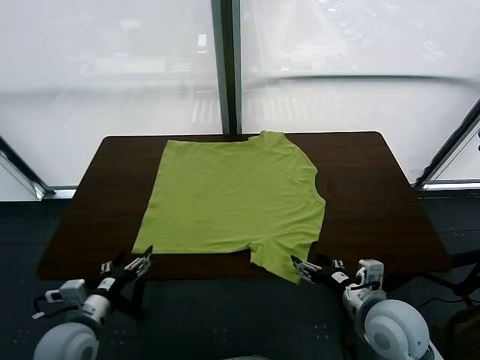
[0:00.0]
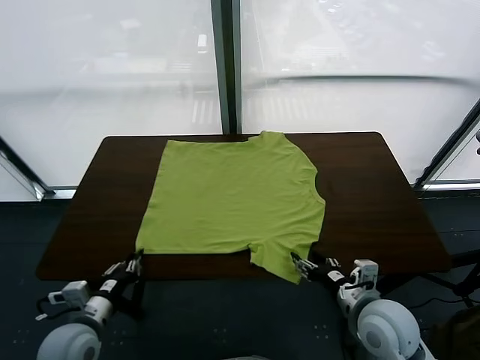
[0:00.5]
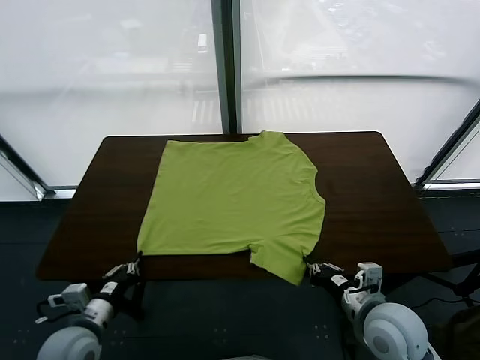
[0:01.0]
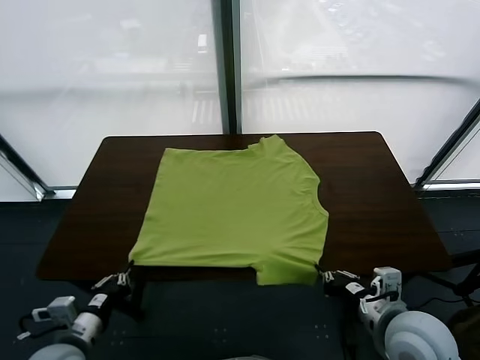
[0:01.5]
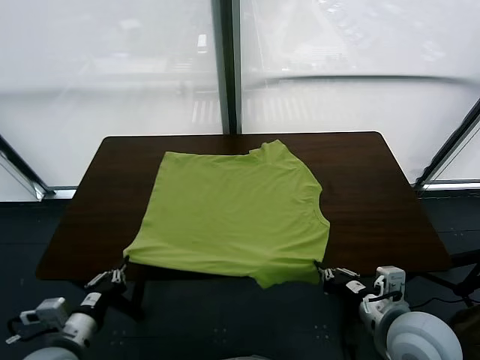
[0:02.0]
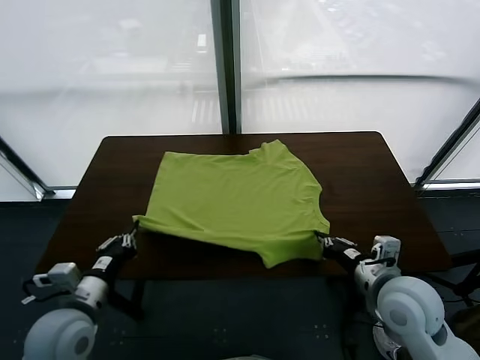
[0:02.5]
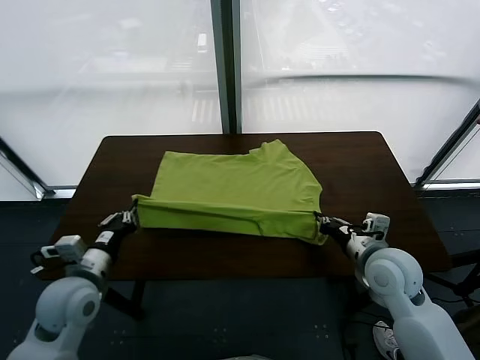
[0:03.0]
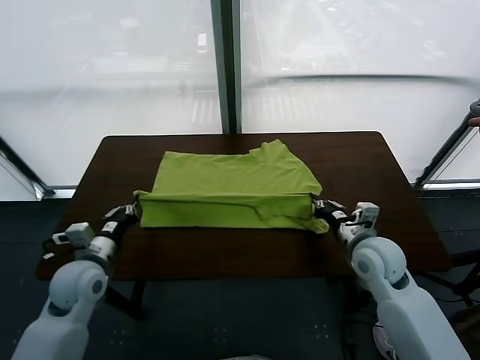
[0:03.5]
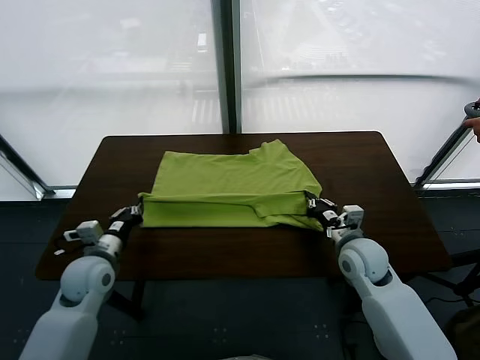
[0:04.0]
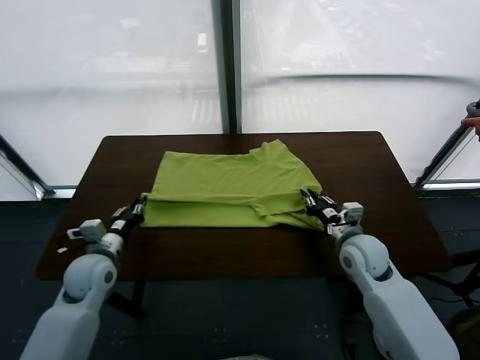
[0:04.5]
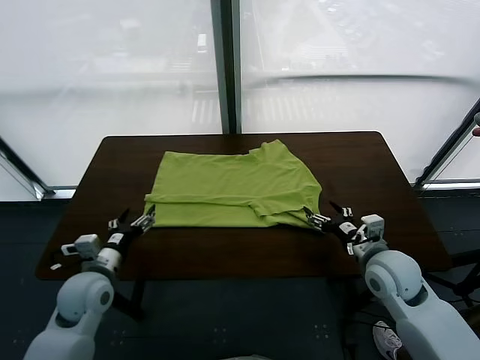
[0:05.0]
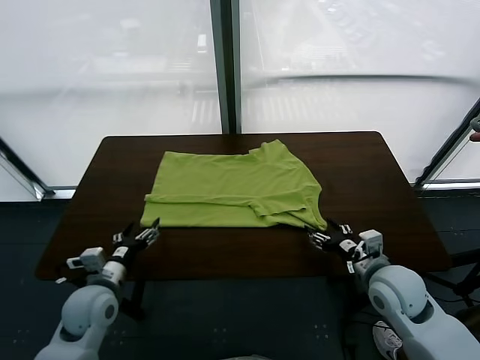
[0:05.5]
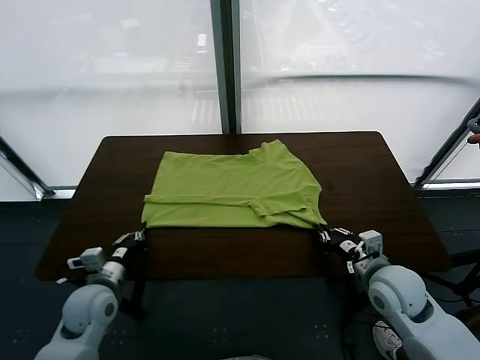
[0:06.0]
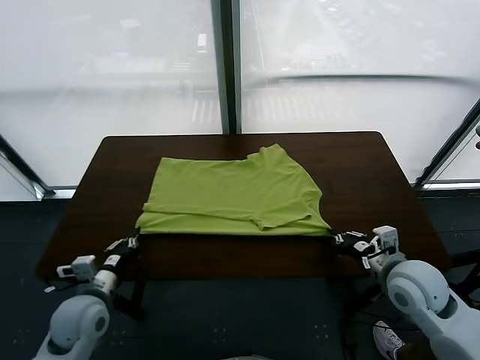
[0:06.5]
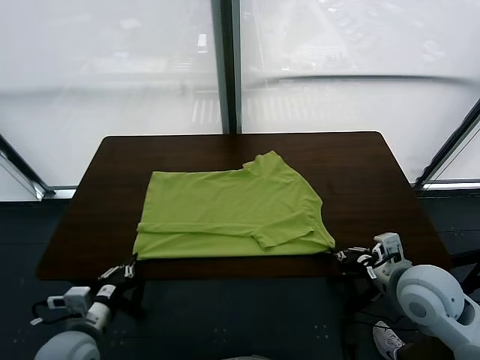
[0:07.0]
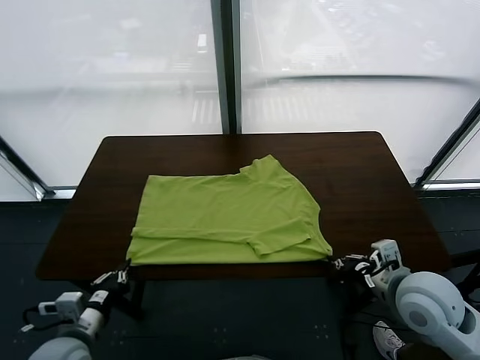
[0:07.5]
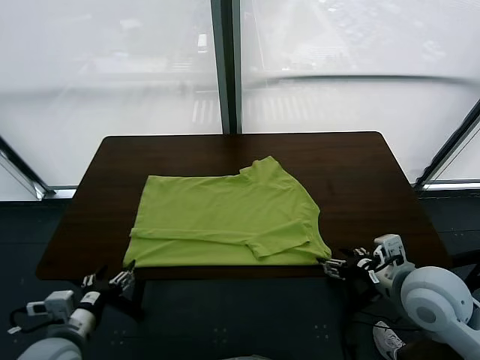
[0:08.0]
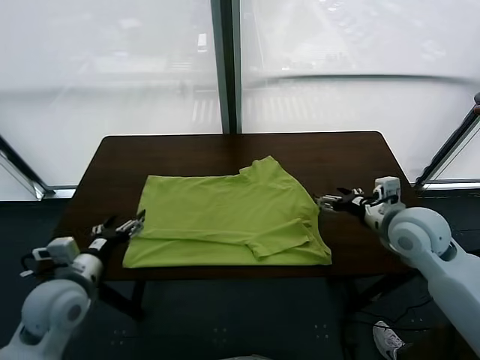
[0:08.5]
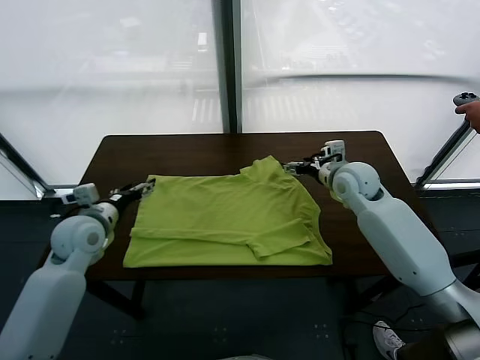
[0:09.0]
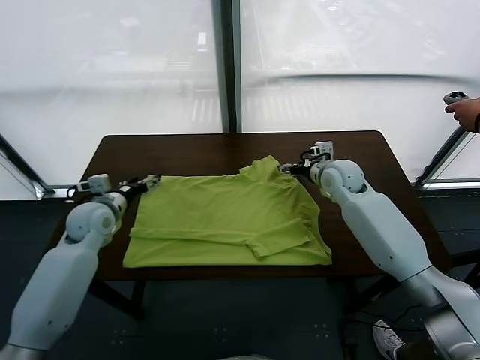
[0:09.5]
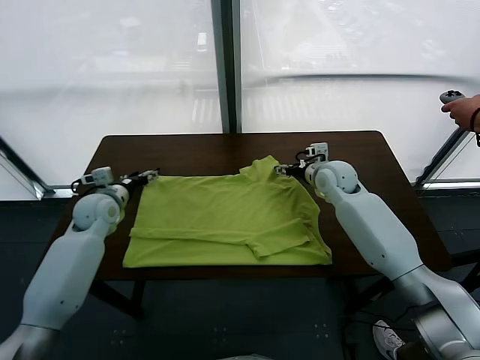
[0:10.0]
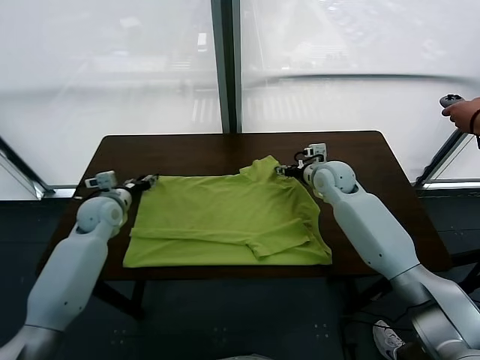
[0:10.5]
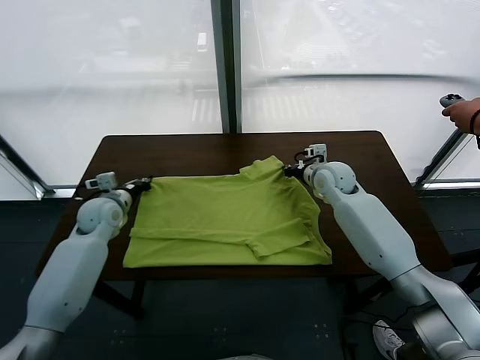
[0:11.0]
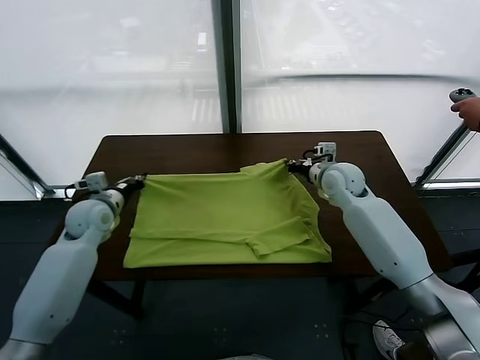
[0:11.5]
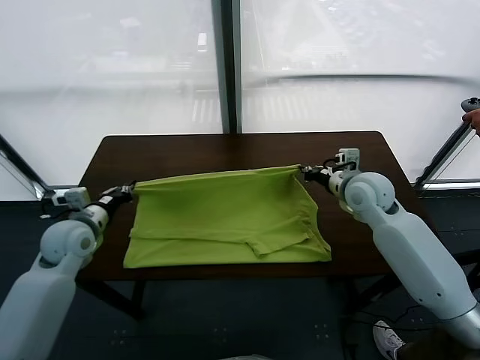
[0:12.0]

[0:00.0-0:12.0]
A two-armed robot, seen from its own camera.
Task of the whole recording: fold and organize the clothes.
Step, 0:00.0 to 0:01.0: use both grippers simultaneously to clamp the lower edge of the clothing fabric.
Step, 0:01.5 to 0:04.5: use both grippers to drag the lower edge of the fabric forward and fold it over the upper edge.
Step, 0:05.0 to 0:08.0: Drag the clothes downward with both gripper.
Step, 0:08.5 to 0:11.0: use both grippers simultaneously to clamp the upper edge of the clothing fabric.
0:02.0 to 0:04.0: The left gripper heads forward, covering roughly 15 cm. The right gripper heads forward and downward, covering about 20 cm.
0:04.0 to 0:06.0: The right gripper shifts approximately 10 cm backward, and opens and closes again. Meanwhile the left gripper moves roughly 5 cm, and opens and closes again.
0:06.0 to 0:08.0: The right gripper is displaced upward by roughly 10 cm, and opens up; the left gripper shifts roughly 10 cm backward and upward, and opens its fingers.
0:08.0 to 0:10.0: Both grippers travel together forward, some 30 cm.
0:10.0 to 0:12.0: The right gripper is displaced backward and upward by roughly 10 cm, and closes its fingers; the left gripper goes some 10 cm backward, and closes up.

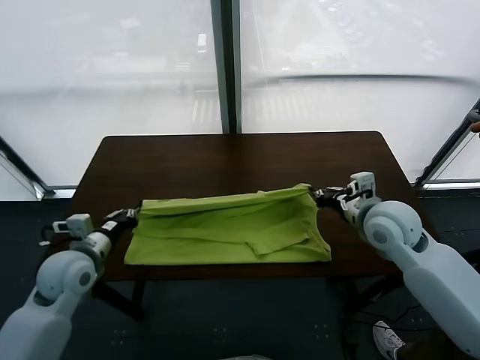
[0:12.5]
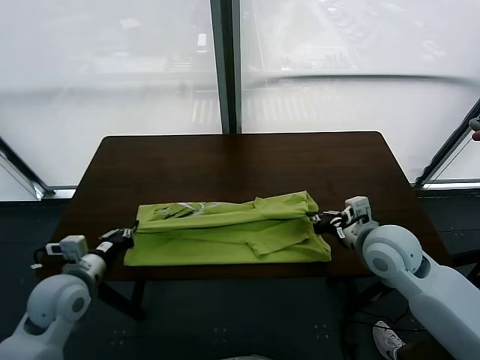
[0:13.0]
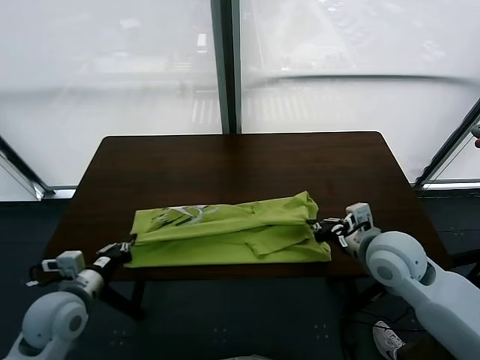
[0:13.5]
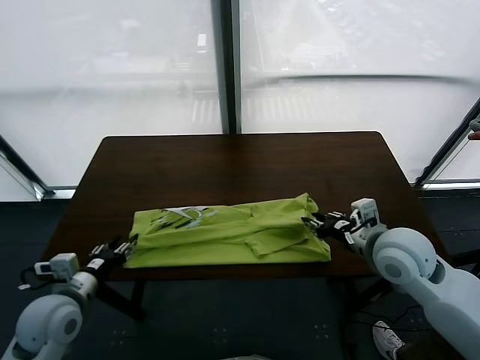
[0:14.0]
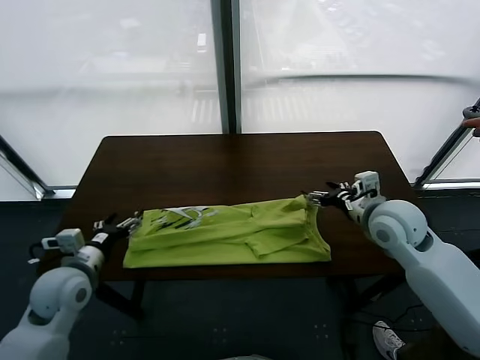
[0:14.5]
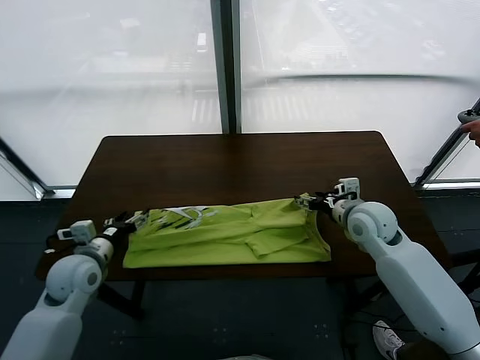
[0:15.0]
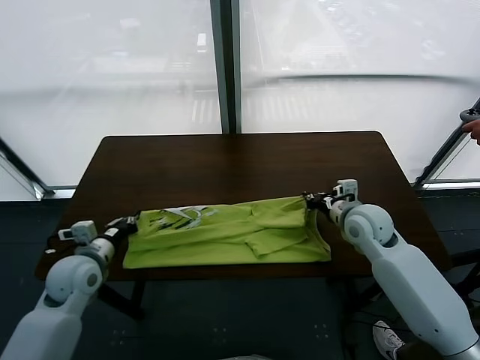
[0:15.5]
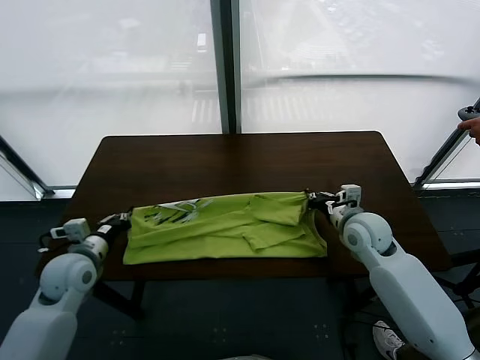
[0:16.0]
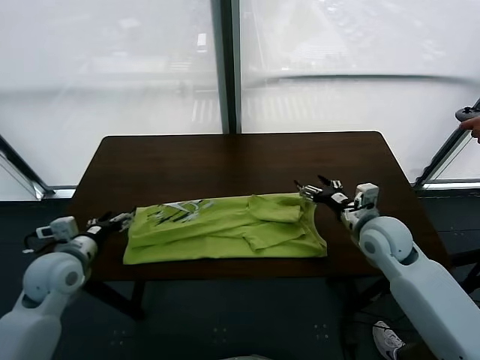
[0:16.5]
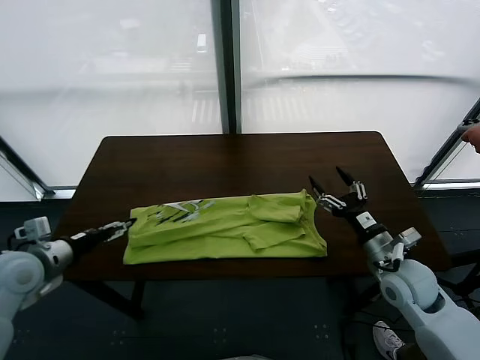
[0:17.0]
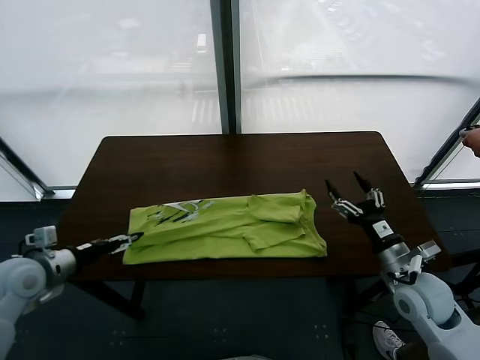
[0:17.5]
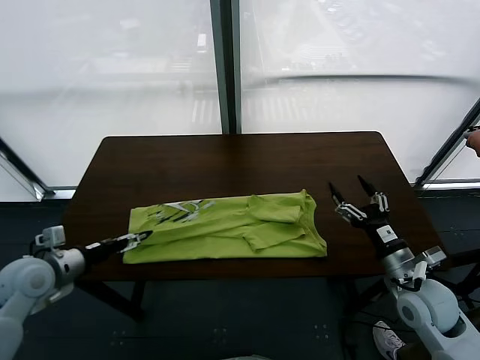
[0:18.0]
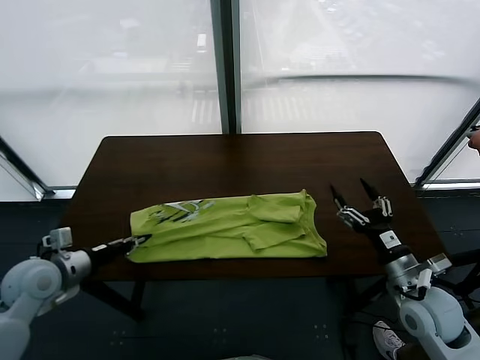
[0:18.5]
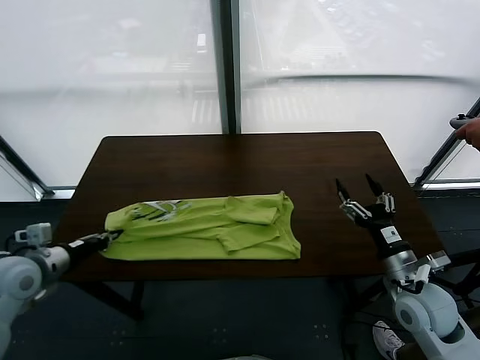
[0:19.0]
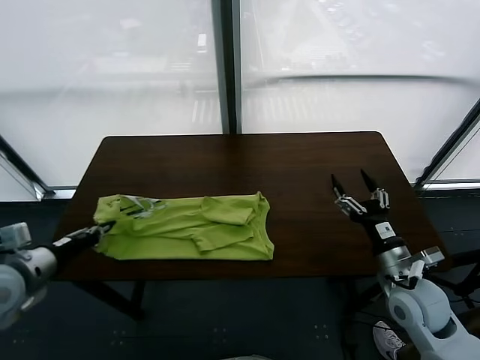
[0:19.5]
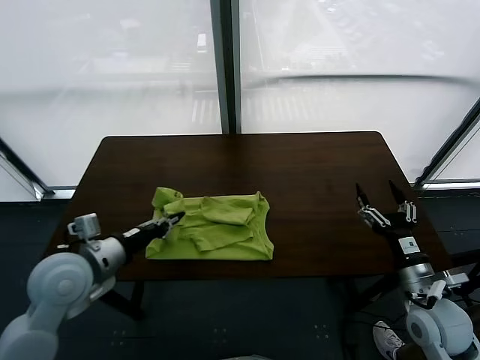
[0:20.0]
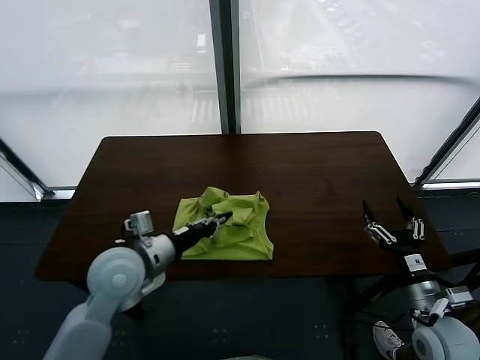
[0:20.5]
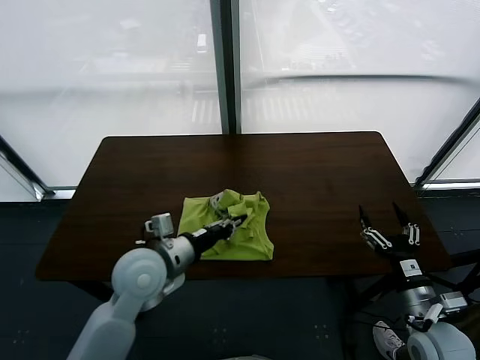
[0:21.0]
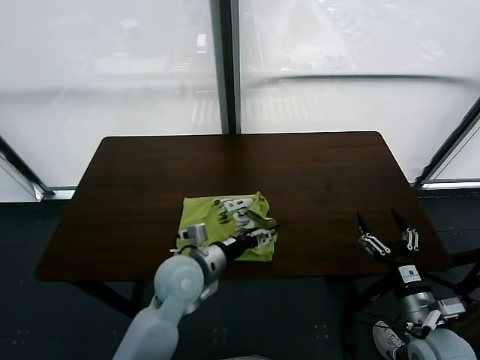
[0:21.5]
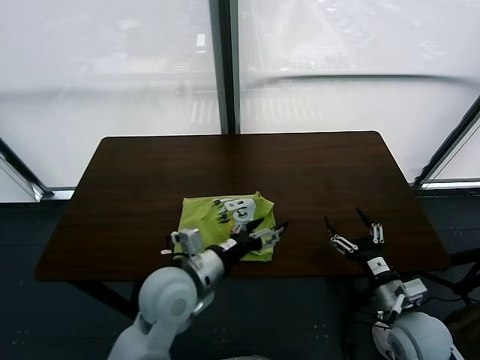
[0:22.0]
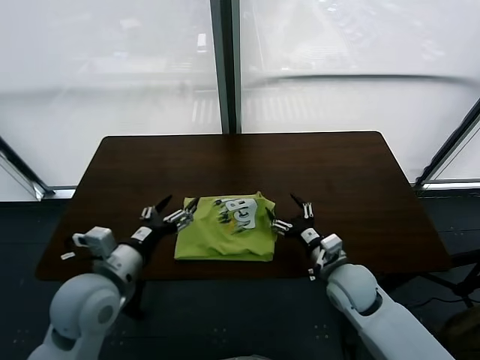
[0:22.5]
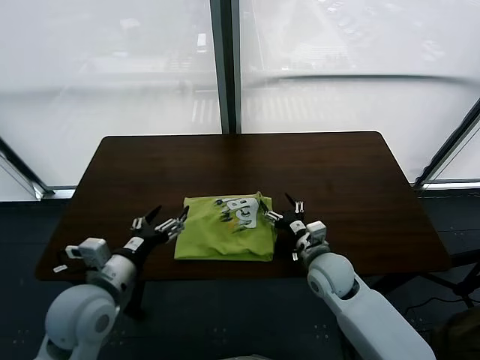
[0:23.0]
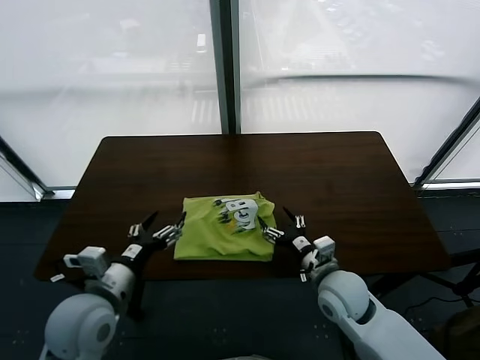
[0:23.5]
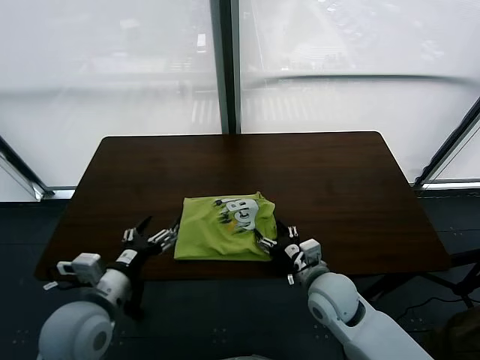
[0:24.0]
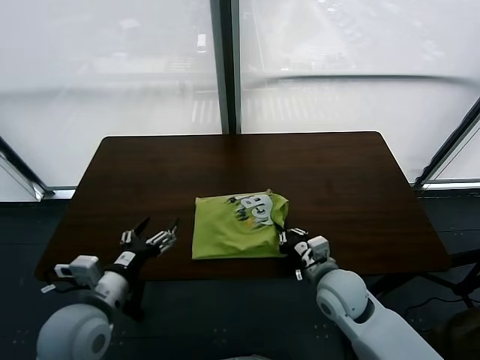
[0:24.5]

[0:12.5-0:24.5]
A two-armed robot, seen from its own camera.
Task of the whole recording: fold and organize the clothes.
Step, 0:12.5 to 0:14.0: use both grippers to drag the upper edge of the fabric backward and fold it over the lower edge.
Step, 0:14.5 to 0:18.5: use the left gripper to clamp the left edge of the fabric.
Step, 0:19.0 to 0:21.5: use the left gripper to drag the left edge of the fabric to the left and folds it over the right edge.
0:12.5 to 0:14.5: The left gripper opens its fingers; the right gripper opens its fingers.
0:14.5 to 0:16.5: The left gripper closes, then opens again. Meanwhile the right gripper changes place by roughly 5 cm, and closes, then opens again.
0:16.5 to 0:18.5: The right gripper goes about 15 cm backward, while the left gripper closes up.
0:18.5 to 0:20.5: The left gripper moves to the right, about 20 cm, while the right gripper changes place by some 5 cm.
0:20.5 to 0:22.5: The left gripper heads backward, covering about 5 cm, moves roughly 10 cm to the right and comes back, and opens up; the right gripper heads to the left and forward, covering about 20 cm.
0:22.5 to 0:24.5: The right gripper closes up. The left gripper shifts by about 5 cm.

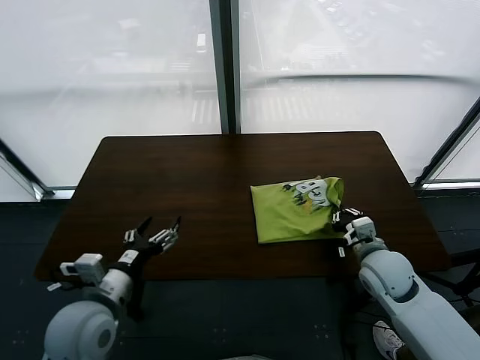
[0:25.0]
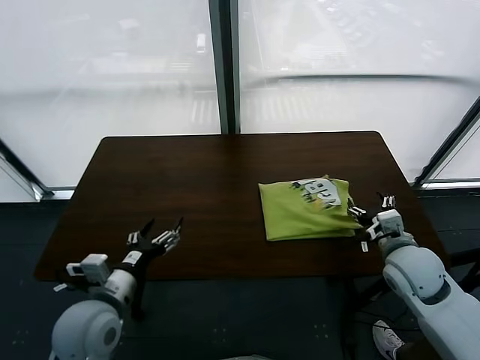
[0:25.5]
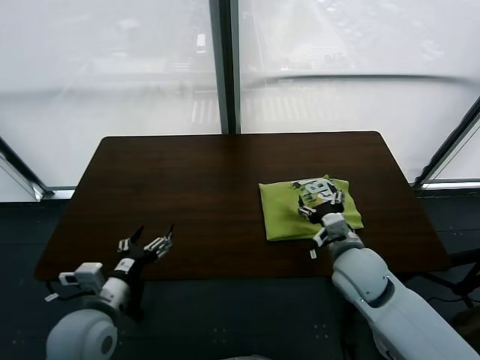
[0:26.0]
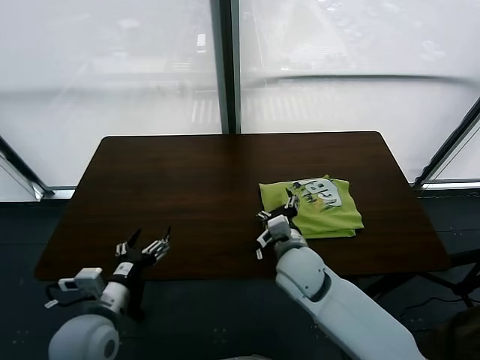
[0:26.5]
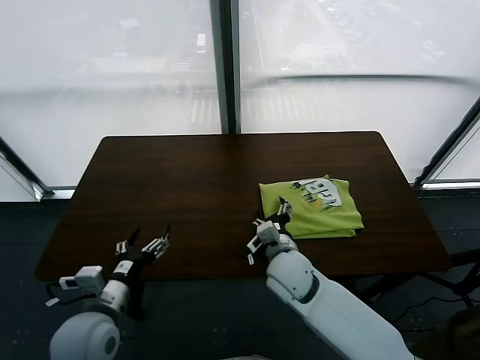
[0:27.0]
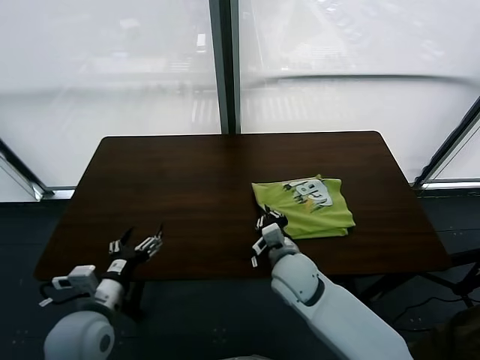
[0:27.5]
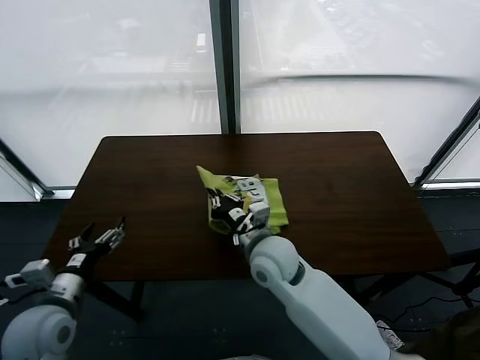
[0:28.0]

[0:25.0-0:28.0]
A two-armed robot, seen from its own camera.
Task of the whole recording: fold and organize the clothes.
0:25.0 to 0:26.5: The right gripper heads to the left, covering some 20 cm, and opens up.
0:26.5 to 0:28.0: Both grippers move to the left, about 5 cm. The right gripper closes its fingers.
